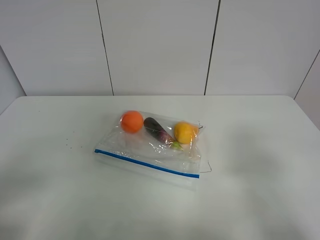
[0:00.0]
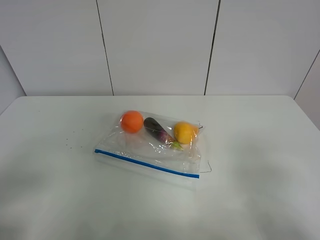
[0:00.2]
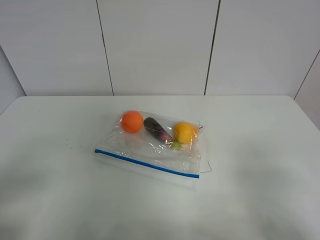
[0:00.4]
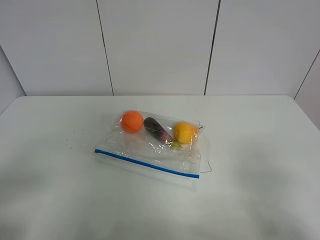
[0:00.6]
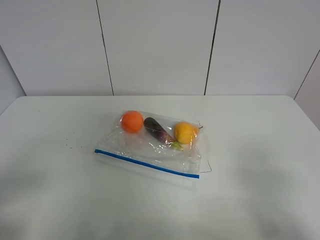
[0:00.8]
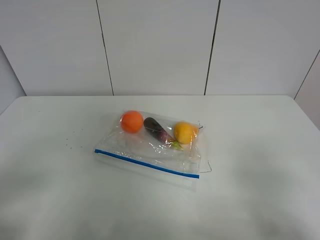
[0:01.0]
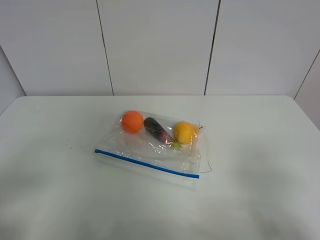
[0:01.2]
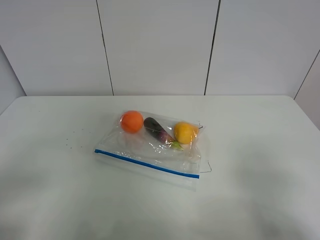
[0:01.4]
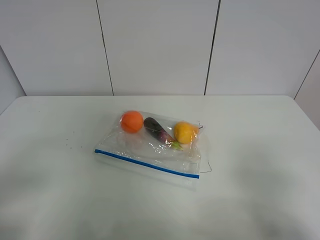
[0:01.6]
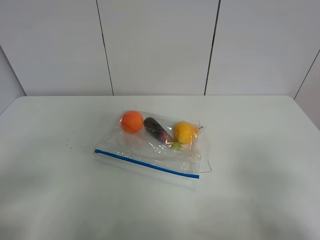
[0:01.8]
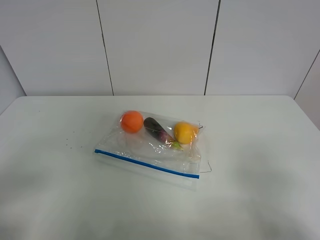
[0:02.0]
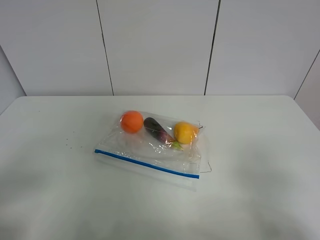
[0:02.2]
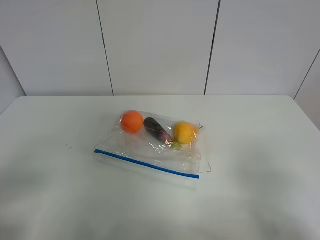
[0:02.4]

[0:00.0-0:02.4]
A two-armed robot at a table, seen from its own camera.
0:01.2 to 0:02.4: Both grippers stay put.

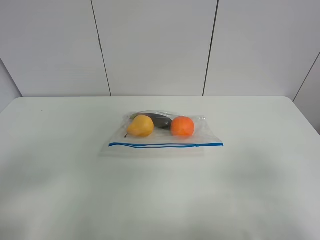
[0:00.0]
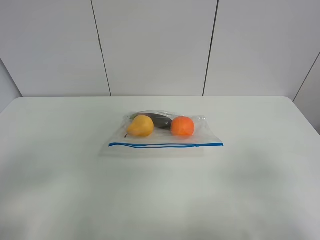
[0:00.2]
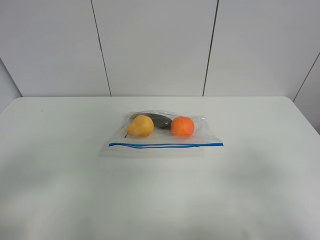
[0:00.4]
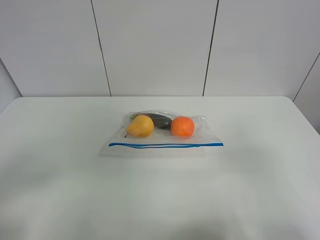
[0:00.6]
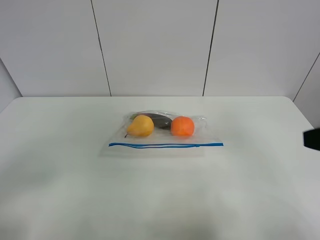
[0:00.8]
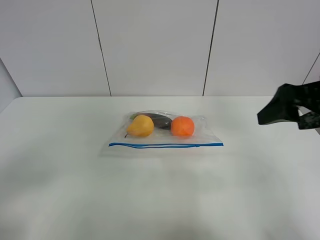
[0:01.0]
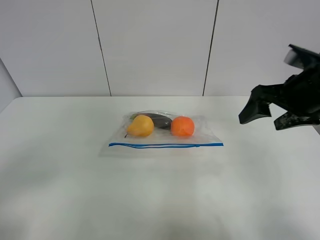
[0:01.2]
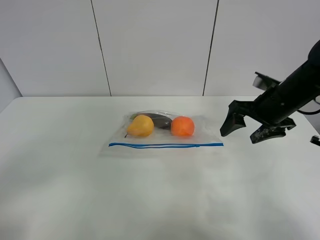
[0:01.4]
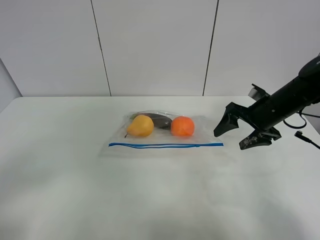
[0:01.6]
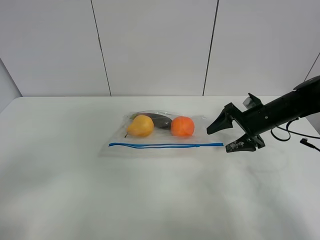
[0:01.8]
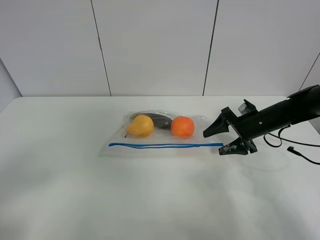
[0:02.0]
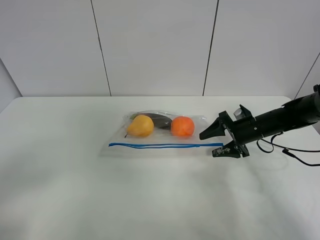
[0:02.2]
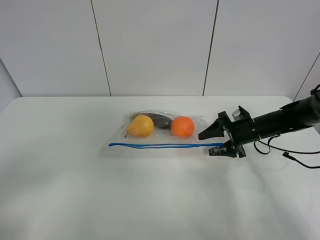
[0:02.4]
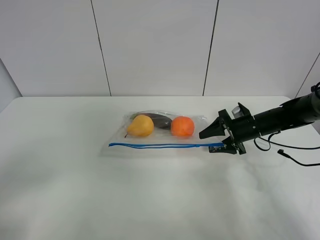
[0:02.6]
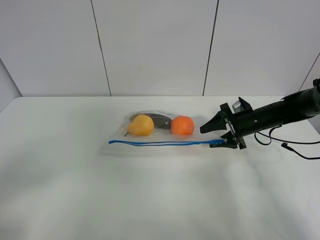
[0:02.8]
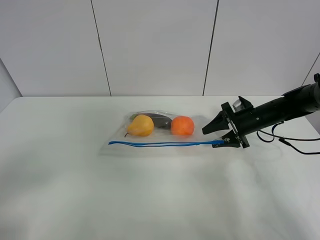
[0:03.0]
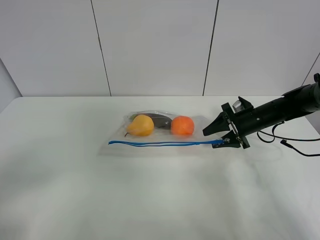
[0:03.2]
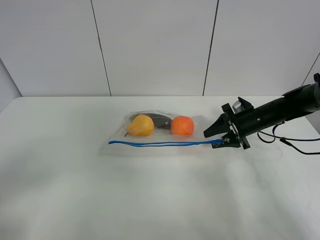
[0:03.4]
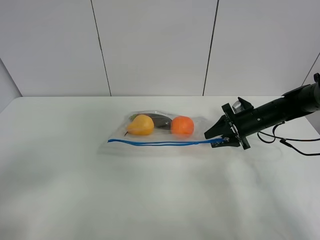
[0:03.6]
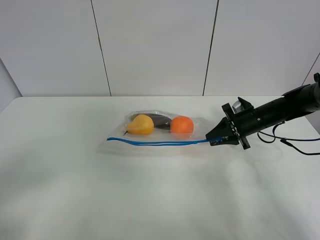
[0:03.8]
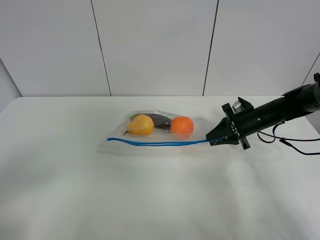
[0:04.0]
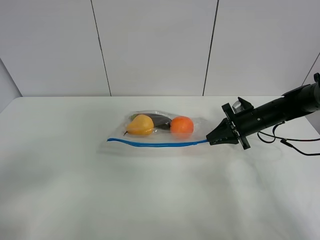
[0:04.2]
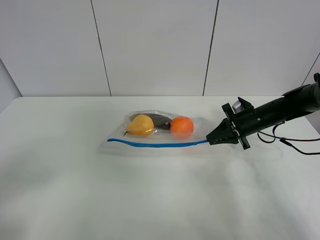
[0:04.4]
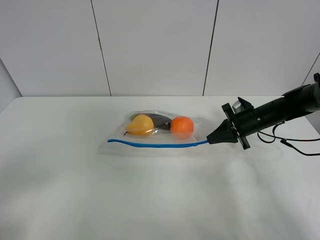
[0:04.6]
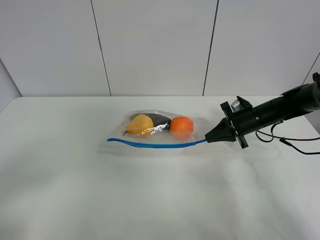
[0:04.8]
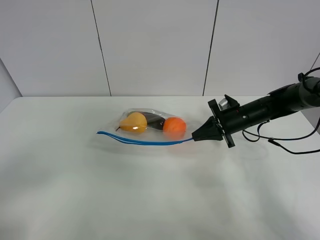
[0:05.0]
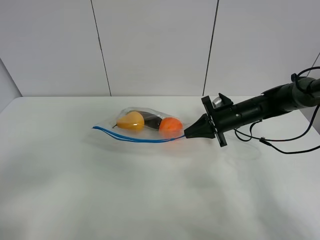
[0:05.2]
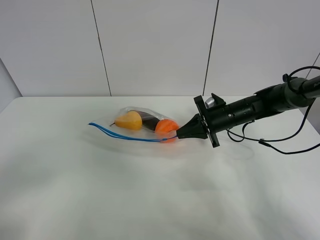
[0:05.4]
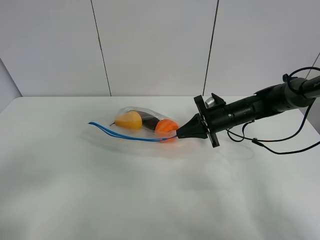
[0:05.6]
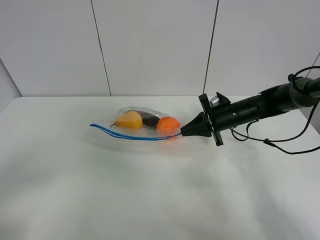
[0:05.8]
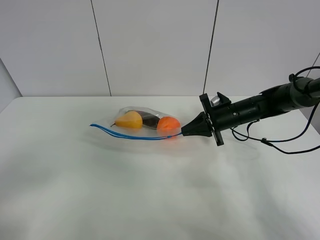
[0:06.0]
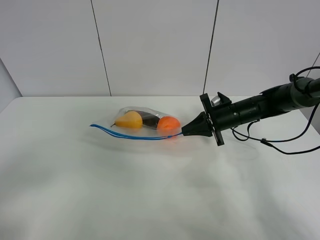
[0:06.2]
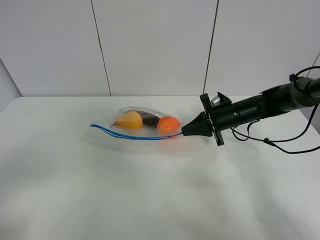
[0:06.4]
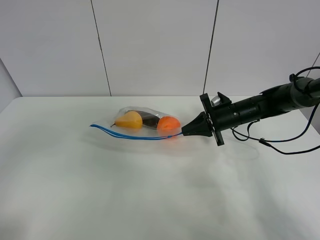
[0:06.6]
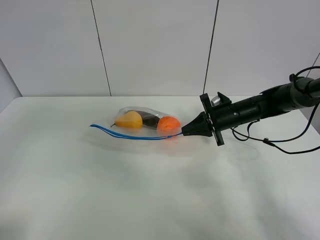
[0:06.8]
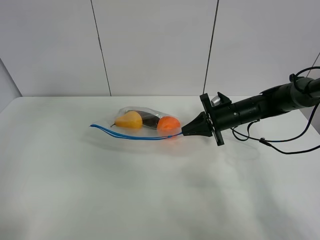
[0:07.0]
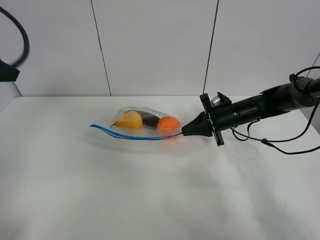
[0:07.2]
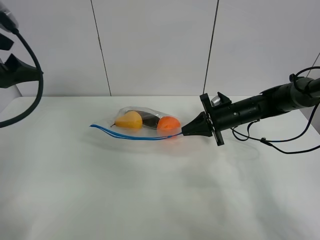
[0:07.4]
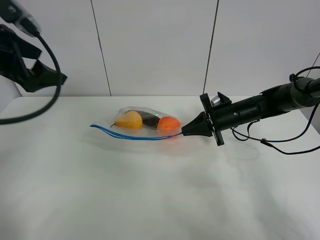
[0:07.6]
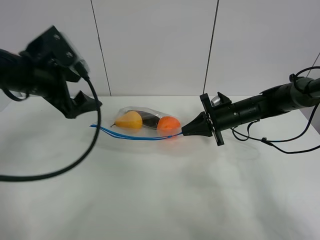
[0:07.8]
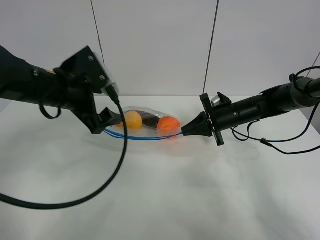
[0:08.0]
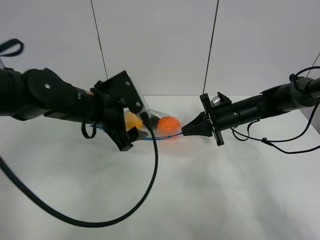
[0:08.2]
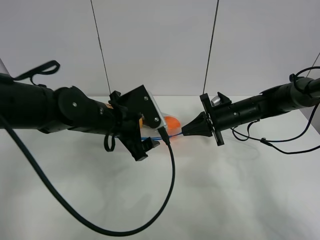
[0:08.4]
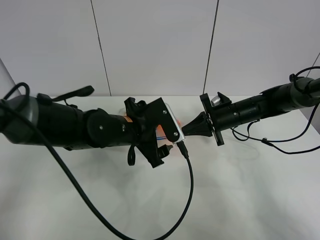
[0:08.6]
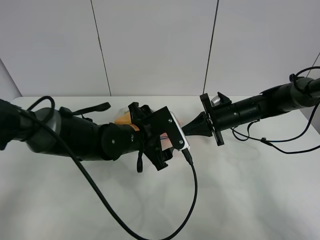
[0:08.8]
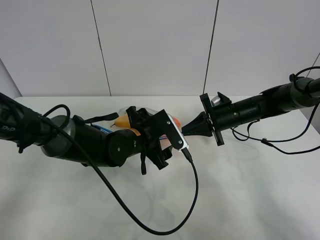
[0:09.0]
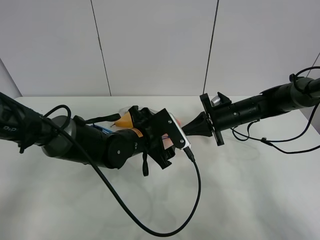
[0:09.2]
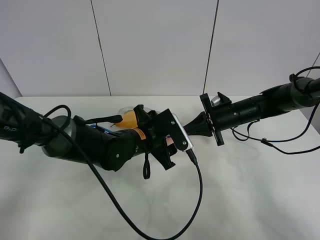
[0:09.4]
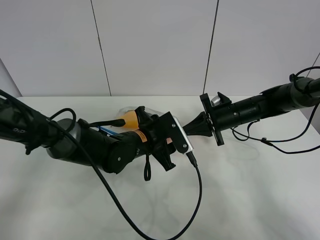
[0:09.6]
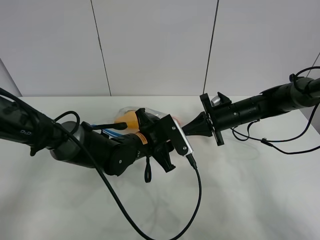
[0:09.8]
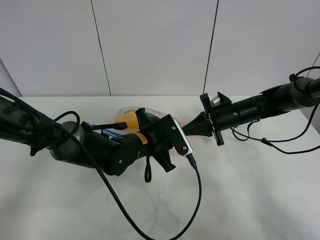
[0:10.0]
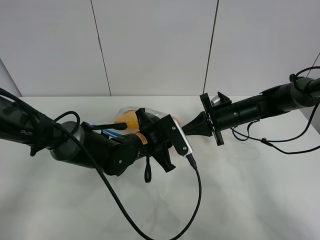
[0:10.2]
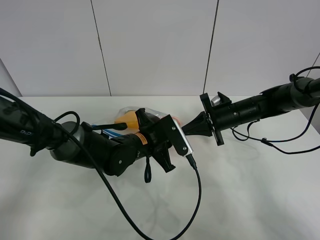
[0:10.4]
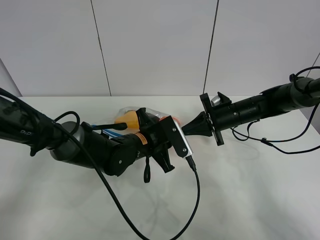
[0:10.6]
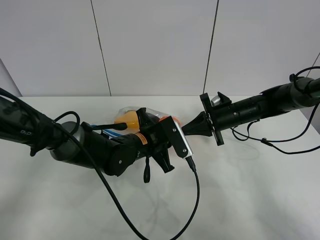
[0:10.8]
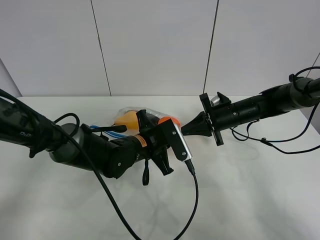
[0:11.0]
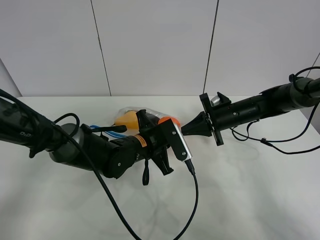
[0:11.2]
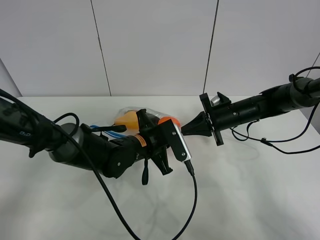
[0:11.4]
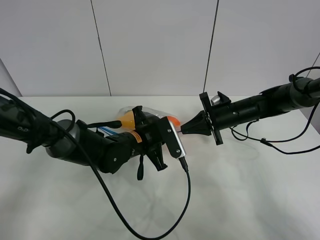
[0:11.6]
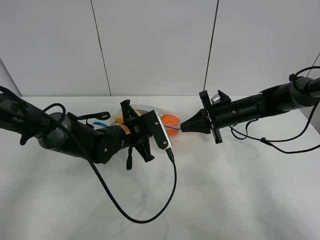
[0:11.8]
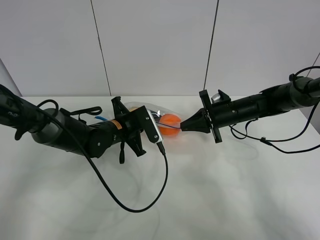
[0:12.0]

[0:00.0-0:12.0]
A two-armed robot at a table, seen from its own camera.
Step, 0:00.0 to 0:04.4: Grasp the fruit bag with right gripper.
Step, 0:04.6 to 0:05.6: Lift the fruit bag with your right gripper.
0:00.0 to 0:01.6: The right gripper moves forward, approximately 35 cm.
0:01.6 to 0:03.0: The right gripper travels downward by about 5 cm.
0:03.0 to 0:04.4: The right gripper closes.
0:04.4 to 0:06.0: The right gripper goes some 5 cm to the left.
0:06.0 to 0:07.6: The left gripper moves forward, about 30 cm.
0:07.6 to 0:09.0: The left gripper is displaced to the right and downward by roughly 30 cm.
0:09.0 to 0:10.4: The left gripper closes.
0:10.4 to 0:12.0: The left gripper moves to the left, roughly 5 cm.

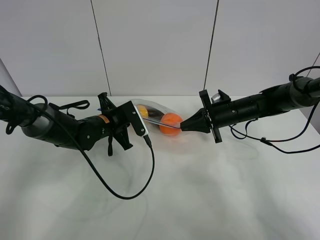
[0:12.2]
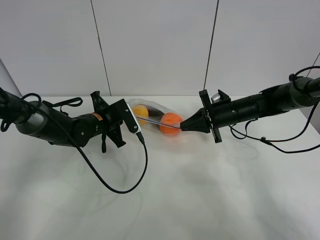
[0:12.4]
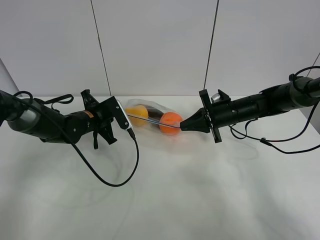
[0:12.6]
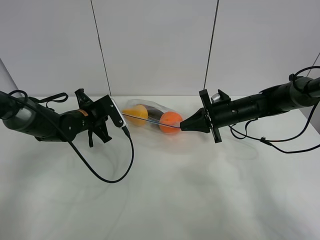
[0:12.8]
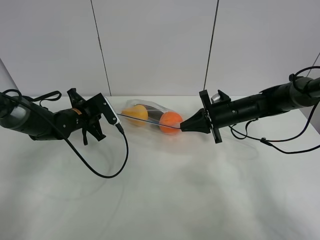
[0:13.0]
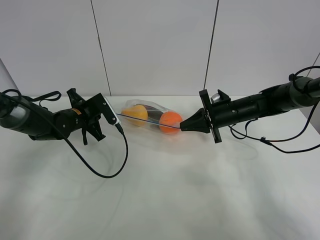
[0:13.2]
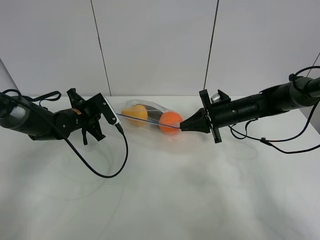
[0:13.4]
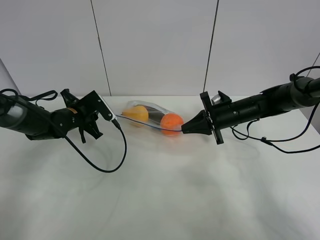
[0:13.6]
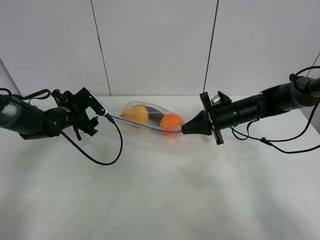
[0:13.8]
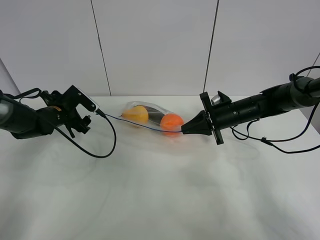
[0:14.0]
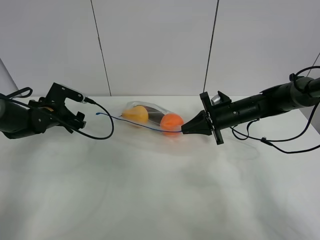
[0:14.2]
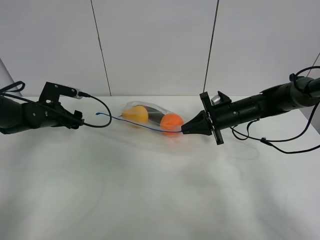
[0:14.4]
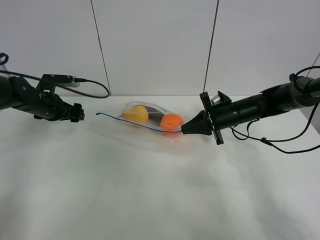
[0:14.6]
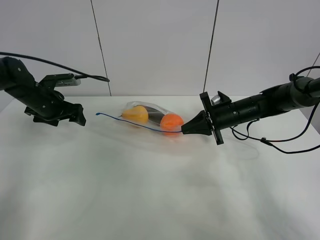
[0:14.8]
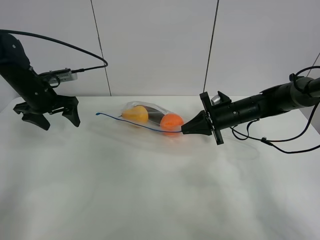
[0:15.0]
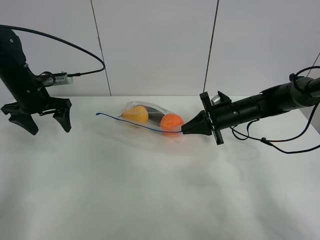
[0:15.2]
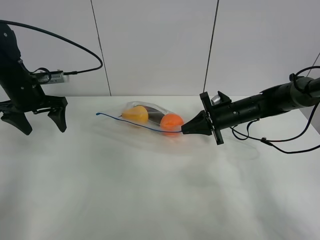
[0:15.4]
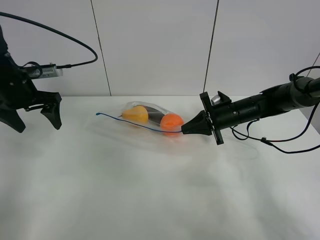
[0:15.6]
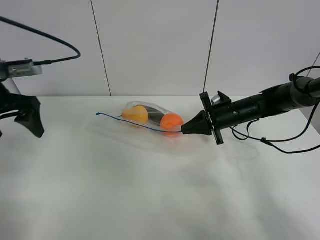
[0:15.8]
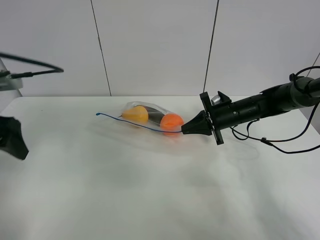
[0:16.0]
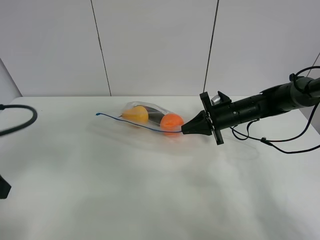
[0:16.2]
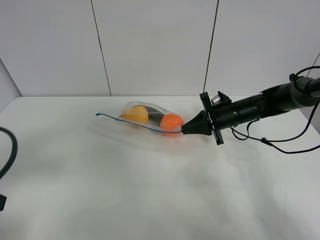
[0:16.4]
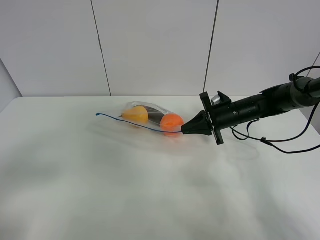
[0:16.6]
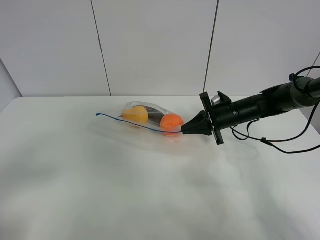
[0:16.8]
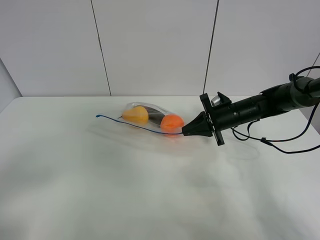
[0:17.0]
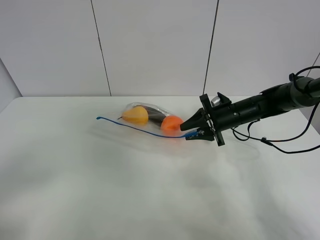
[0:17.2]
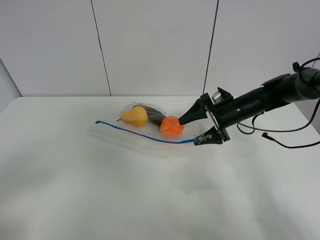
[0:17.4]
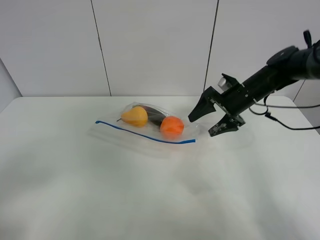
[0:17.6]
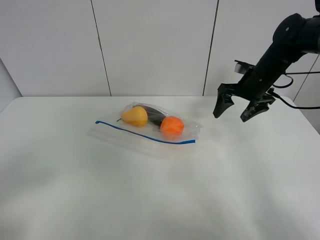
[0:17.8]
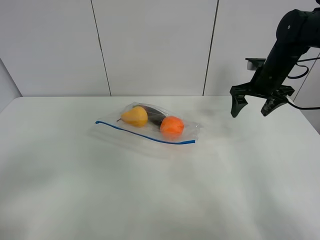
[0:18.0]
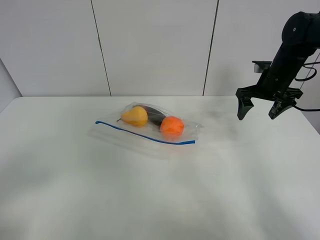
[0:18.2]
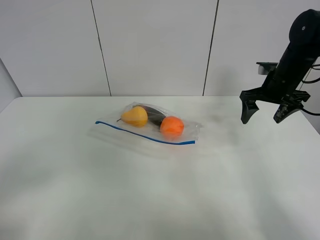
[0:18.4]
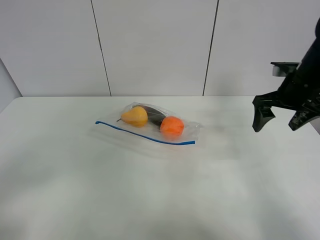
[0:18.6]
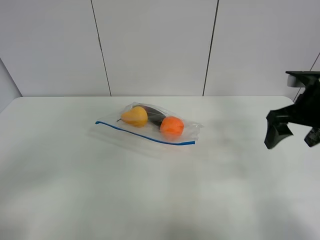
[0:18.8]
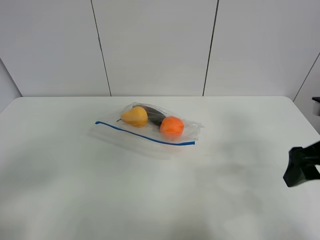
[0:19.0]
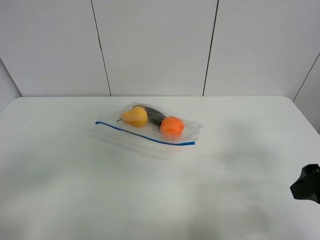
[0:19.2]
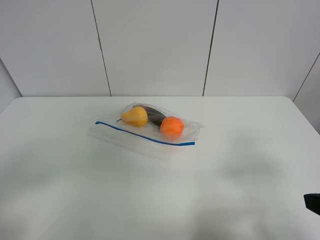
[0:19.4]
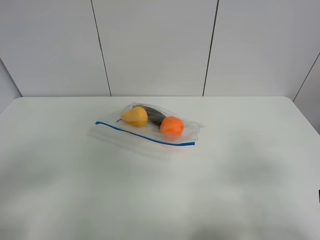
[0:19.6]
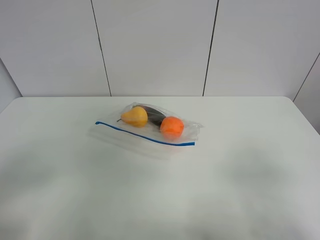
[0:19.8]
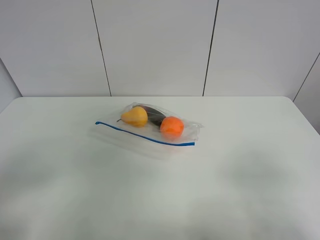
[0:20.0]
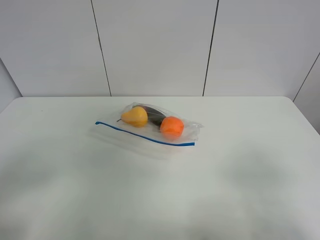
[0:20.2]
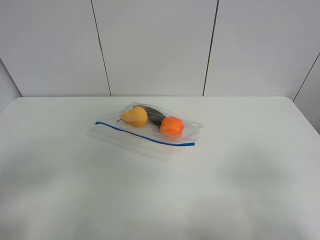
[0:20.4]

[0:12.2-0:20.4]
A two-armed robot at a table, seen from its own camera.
0:12.2 to 0:13.8: The left gripper is displaced to the left by about 10 cm, and opens up.
0:13.8 to 0:15.4: The left gripper shifts some 10 cm upward and to the left.
0:15.4 to 0:17.2: The left gripper goes about 35 cm backward. The right gripper opens its fingers.
0:17.2 to 0:18.8: The right gripper shifts some 20 cm upward, backward and to the right, and opens its fingers.
0:18.8 to 0:20.4: The right gripper moves backward, roughly 25 cm.
